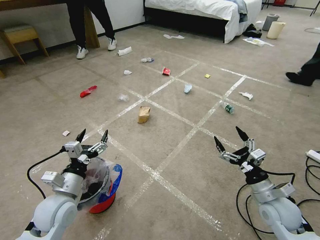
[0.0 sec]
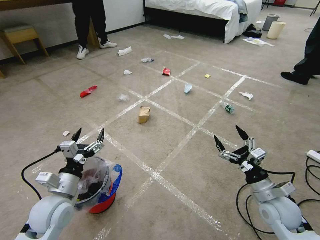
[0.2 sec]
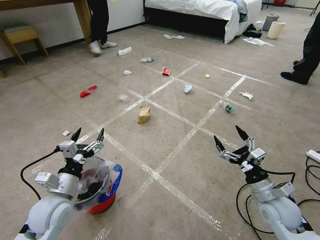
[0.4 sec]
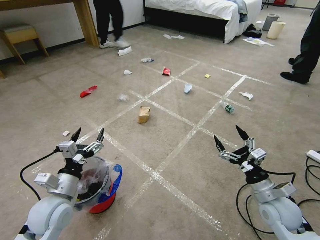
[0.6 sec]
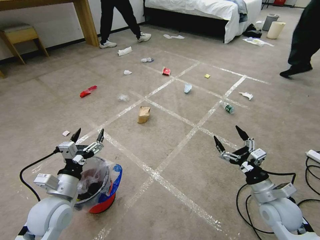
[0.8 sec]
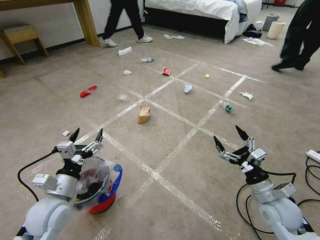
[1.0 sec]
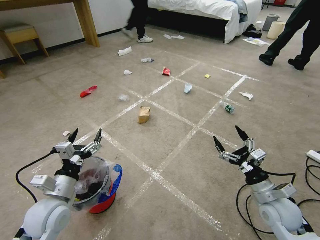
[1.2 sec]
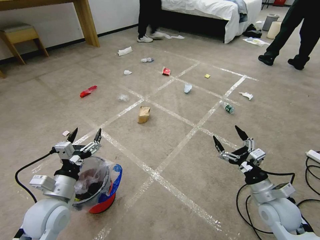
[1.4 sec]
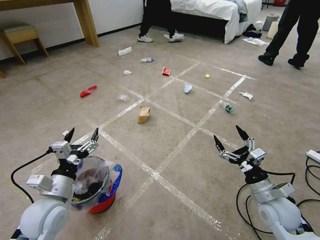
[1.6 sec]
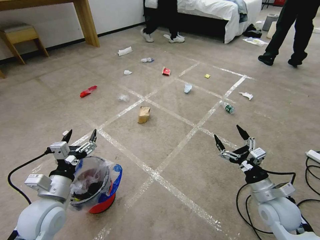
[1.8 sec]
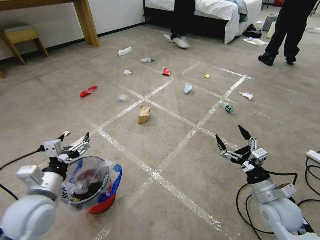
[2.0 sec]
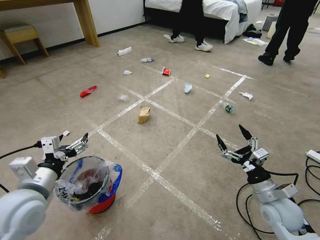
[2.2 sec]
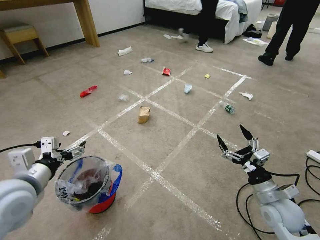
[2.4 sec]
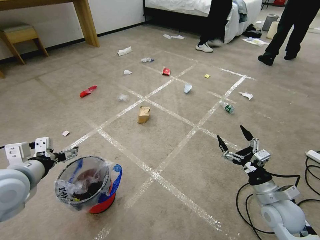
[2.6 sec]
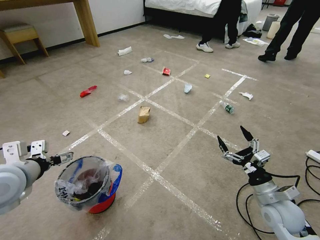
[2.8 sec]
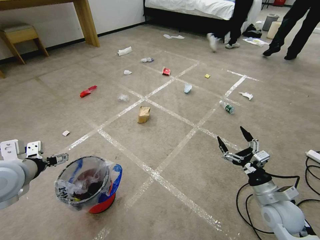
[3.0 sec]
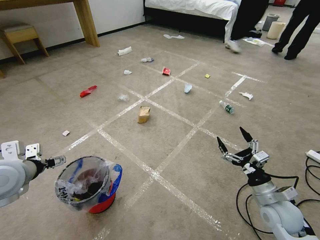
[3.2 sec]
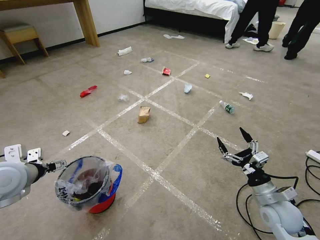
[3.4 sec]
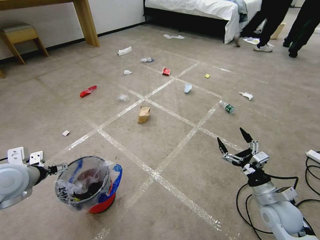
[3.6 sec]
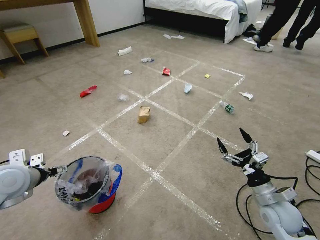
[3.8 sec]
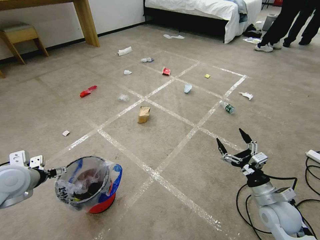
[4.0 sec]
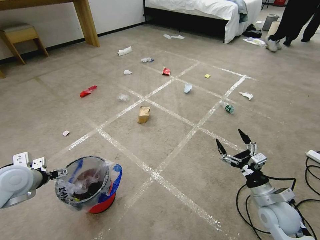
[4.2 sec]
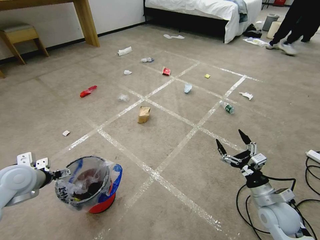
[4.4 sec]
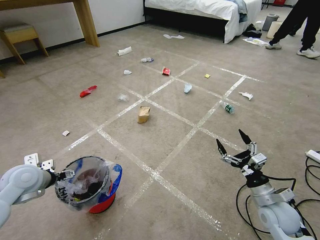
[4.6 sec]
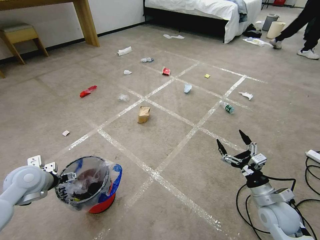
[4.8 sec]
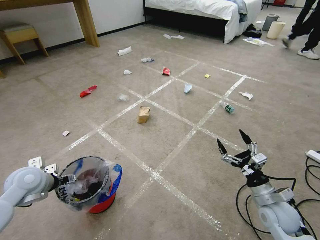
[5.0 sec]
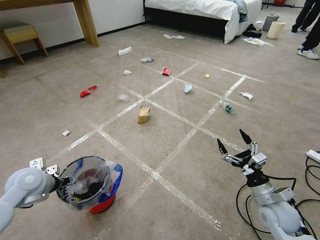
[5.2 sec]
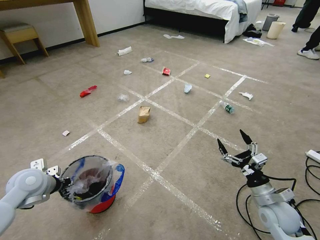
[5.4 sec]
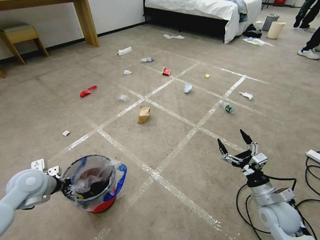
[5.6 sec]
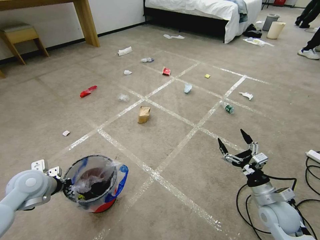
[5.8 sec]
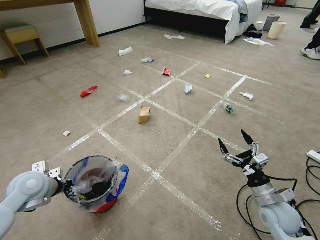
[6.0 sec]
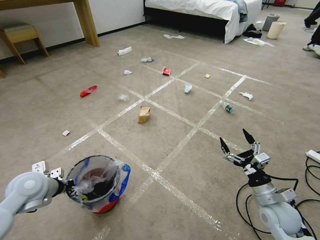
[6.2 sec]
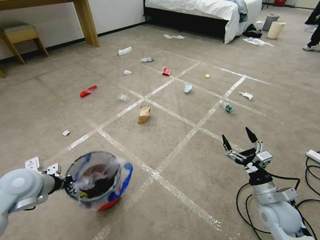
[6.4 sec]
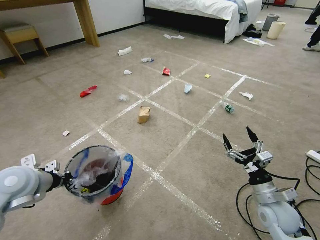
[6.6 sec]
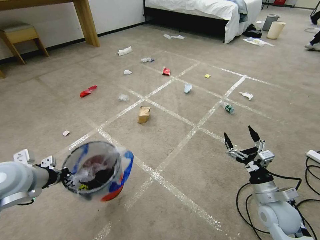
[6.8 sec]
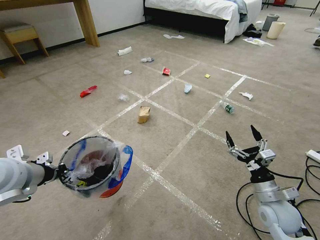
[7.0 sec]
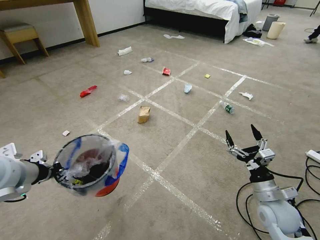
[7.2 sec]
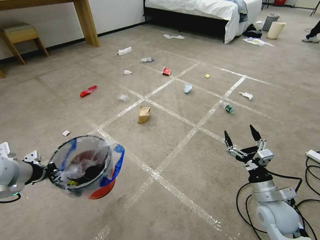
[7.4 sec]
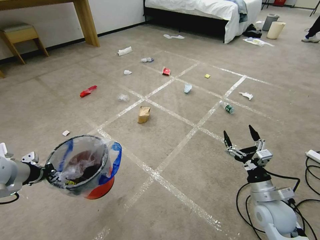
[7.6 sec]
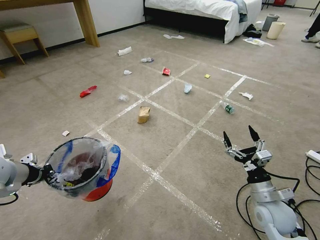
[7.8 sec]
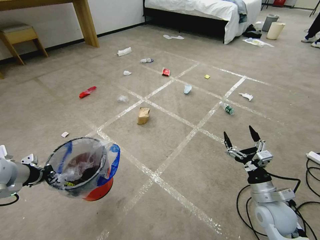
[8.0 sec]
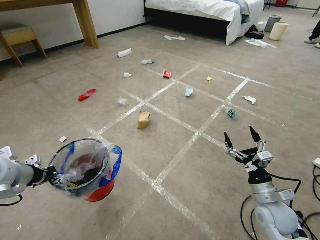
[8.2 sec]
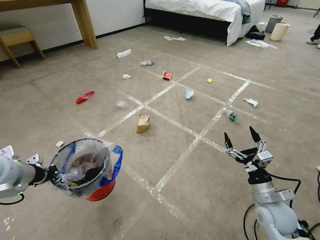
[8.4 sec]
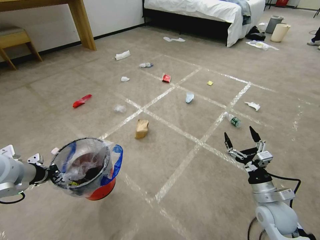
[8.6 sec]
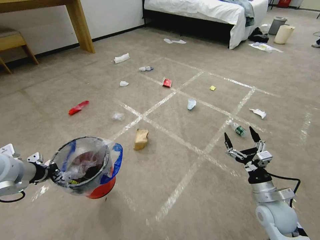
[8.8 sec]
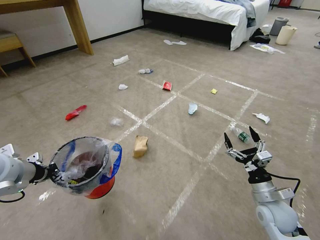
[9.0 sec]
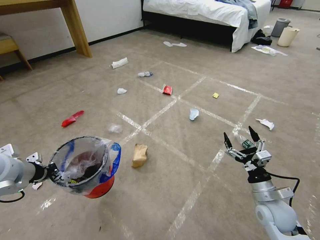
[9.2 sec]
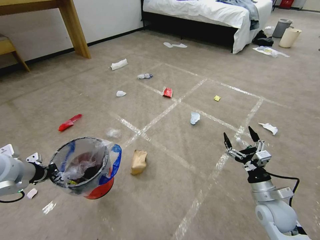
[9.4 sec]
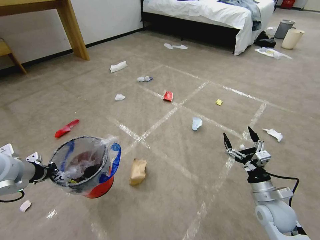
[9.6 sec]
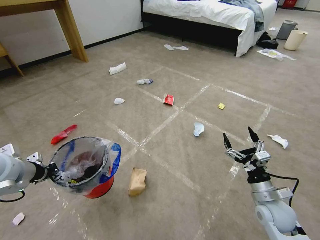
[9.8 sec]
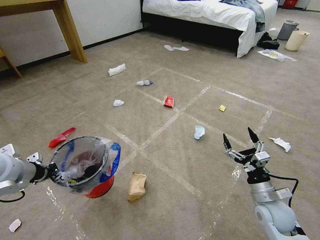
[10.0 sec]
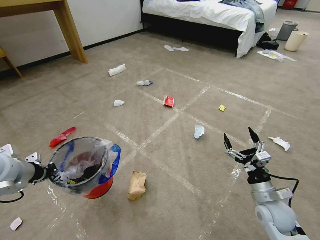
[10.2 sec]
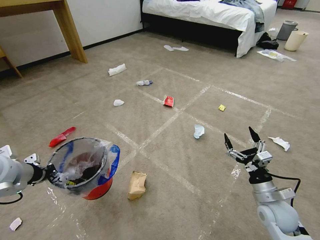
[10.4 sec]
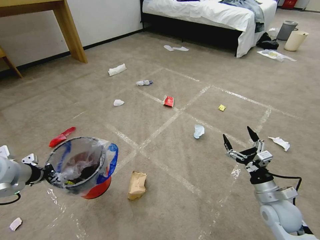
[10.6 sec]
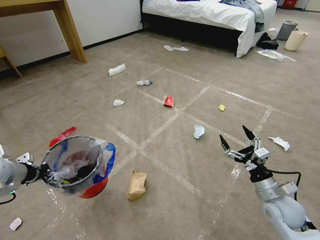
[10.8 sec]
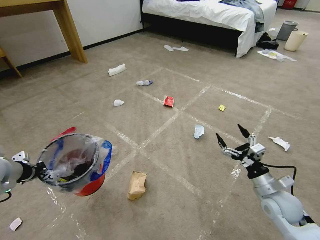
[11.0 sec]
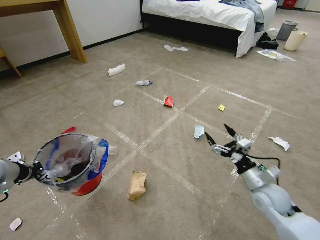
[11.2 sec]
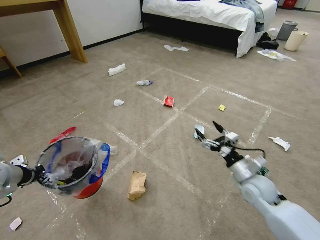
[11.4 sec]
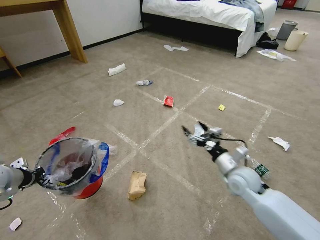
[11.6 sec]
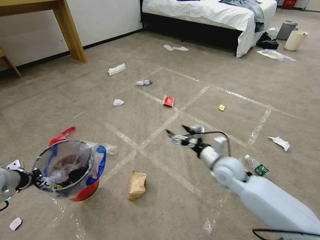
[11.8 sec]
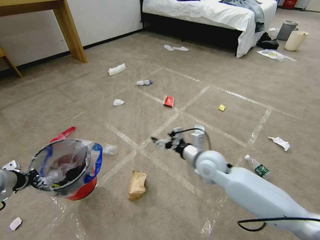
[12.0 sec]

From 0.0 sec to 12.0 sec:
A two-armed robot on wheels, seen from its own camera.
Task of the whole recording: Pick up the trash bin and place the garbage on the floor into it.
From 1.6 sec to 3.0 sec: The left gripper moves upward and to the left, about 15 cm.
From 3.0 sec to 4.4 sec: The left gripper heads downward, covering roughly 10 cm.
From 4.4 sec to 6.0 sec: The left gripper closes.
From 6.0 sec to 7.6 sec: The left gripper shifts some 10 cm upward.
From 10.4 sec to 12.0 sec: The right gripper moves to the left, forward and upward, roughly 25 cm.

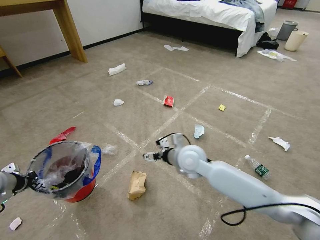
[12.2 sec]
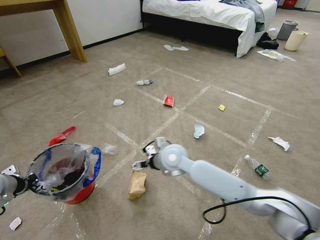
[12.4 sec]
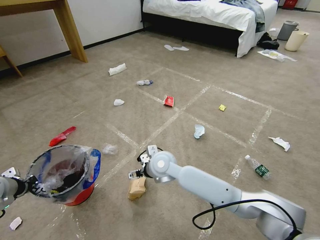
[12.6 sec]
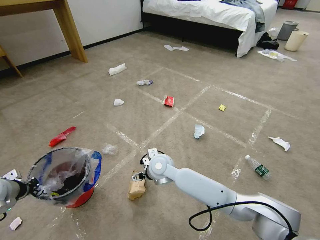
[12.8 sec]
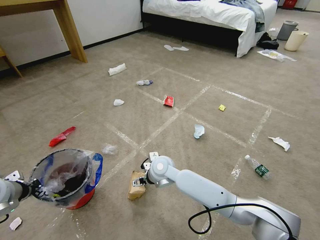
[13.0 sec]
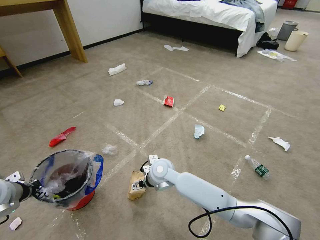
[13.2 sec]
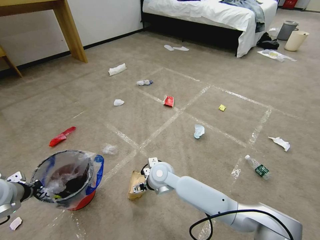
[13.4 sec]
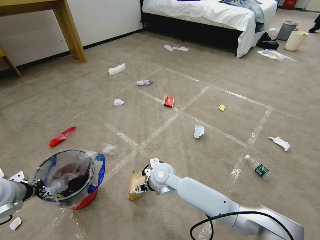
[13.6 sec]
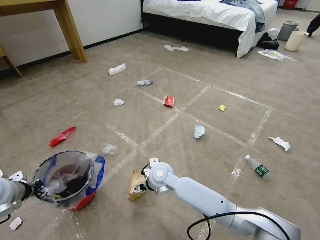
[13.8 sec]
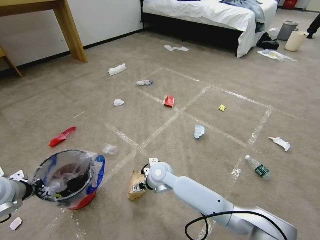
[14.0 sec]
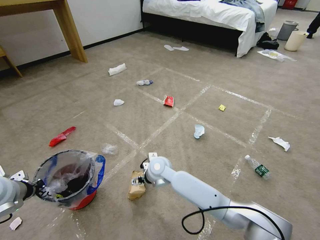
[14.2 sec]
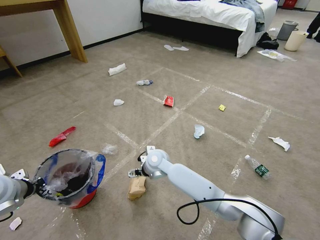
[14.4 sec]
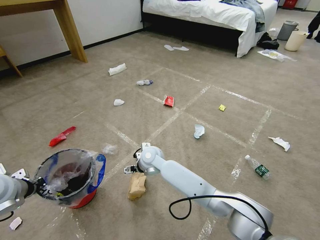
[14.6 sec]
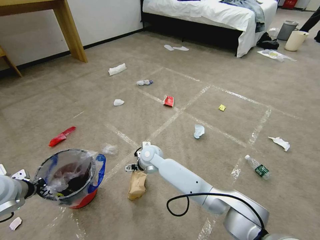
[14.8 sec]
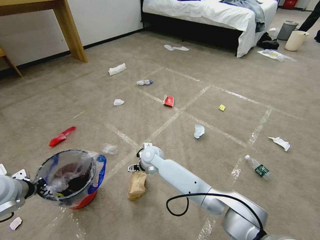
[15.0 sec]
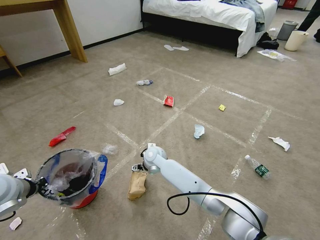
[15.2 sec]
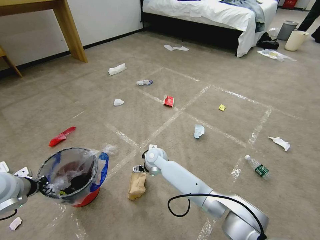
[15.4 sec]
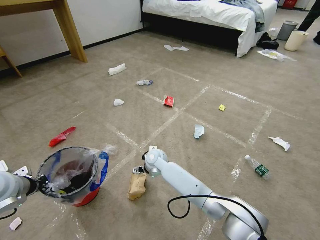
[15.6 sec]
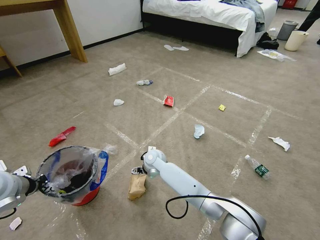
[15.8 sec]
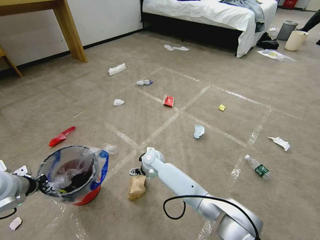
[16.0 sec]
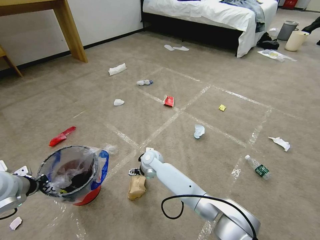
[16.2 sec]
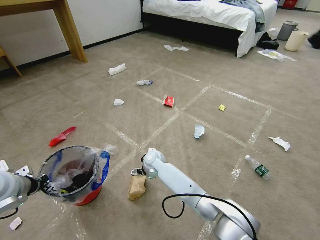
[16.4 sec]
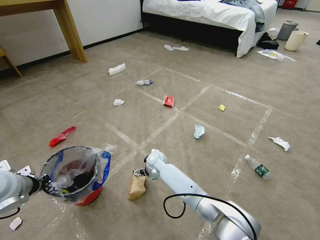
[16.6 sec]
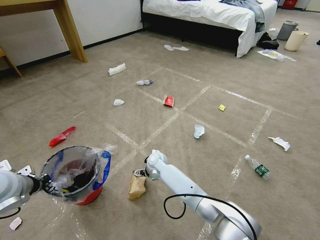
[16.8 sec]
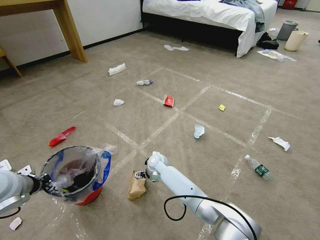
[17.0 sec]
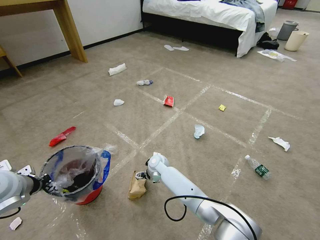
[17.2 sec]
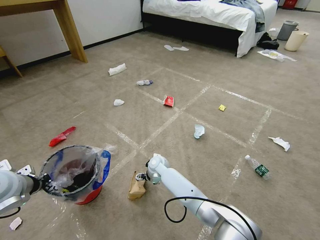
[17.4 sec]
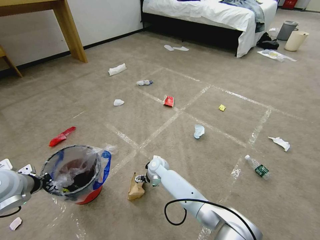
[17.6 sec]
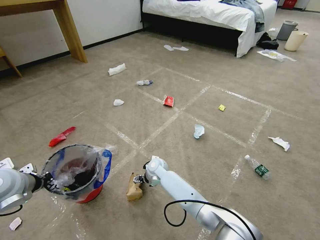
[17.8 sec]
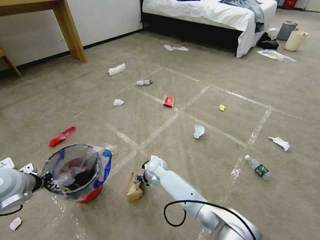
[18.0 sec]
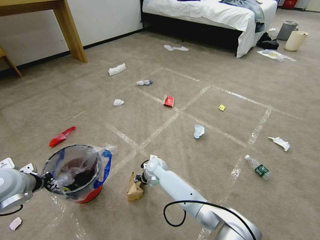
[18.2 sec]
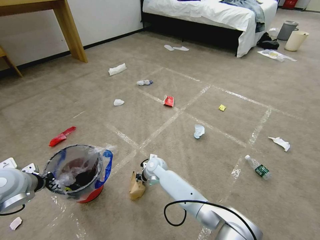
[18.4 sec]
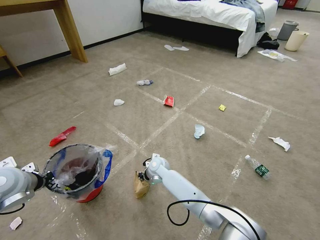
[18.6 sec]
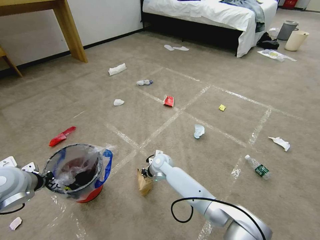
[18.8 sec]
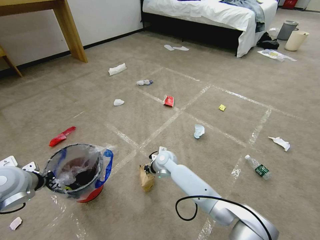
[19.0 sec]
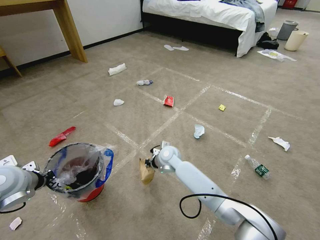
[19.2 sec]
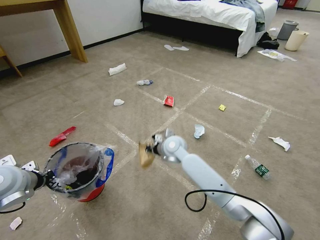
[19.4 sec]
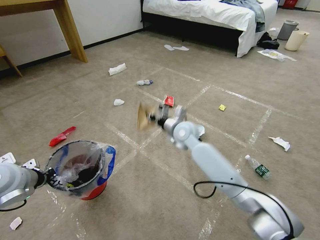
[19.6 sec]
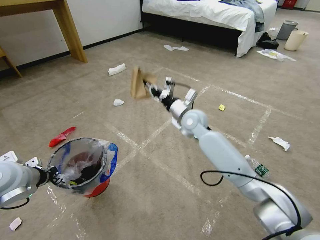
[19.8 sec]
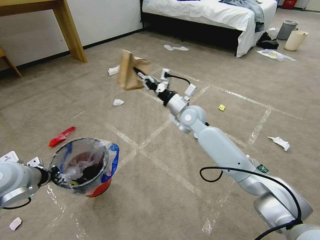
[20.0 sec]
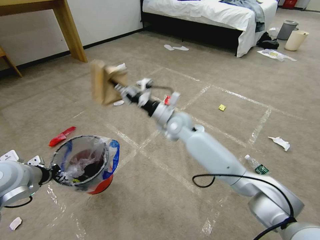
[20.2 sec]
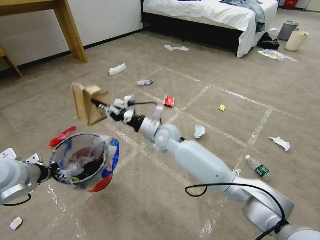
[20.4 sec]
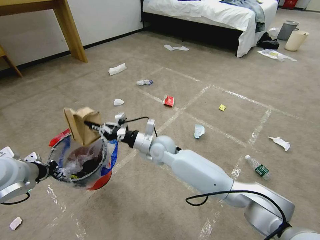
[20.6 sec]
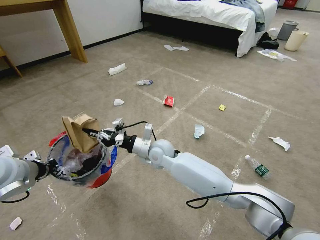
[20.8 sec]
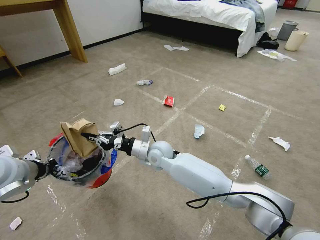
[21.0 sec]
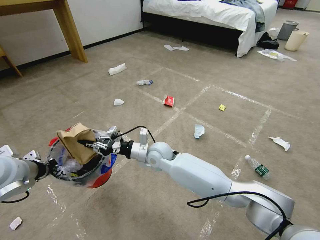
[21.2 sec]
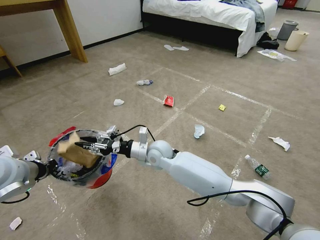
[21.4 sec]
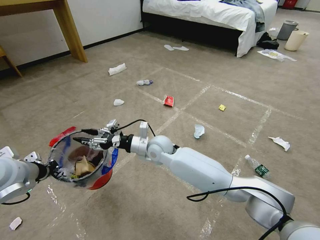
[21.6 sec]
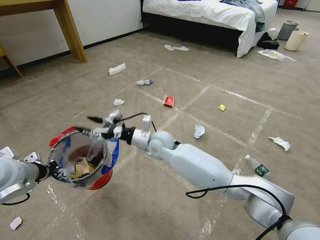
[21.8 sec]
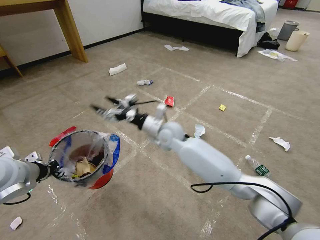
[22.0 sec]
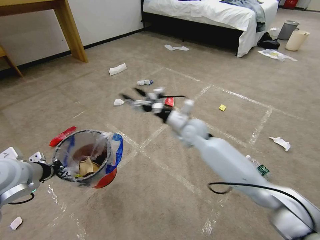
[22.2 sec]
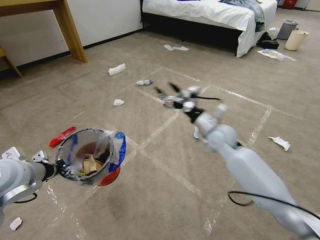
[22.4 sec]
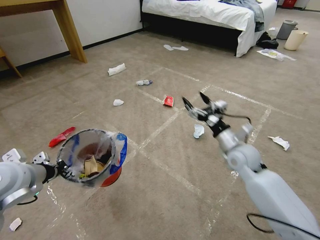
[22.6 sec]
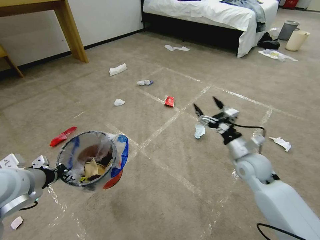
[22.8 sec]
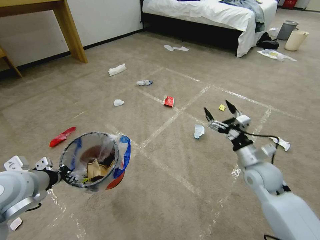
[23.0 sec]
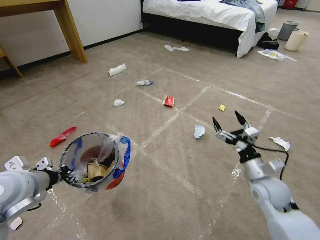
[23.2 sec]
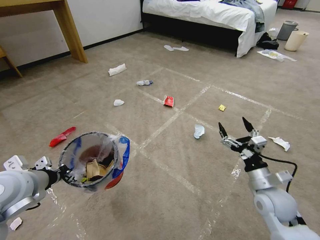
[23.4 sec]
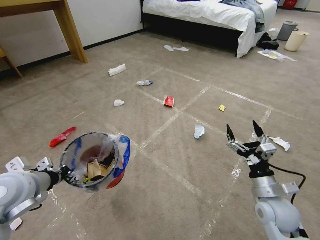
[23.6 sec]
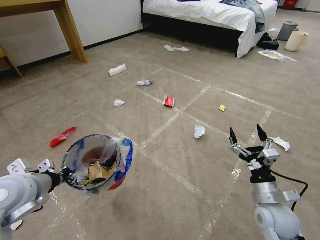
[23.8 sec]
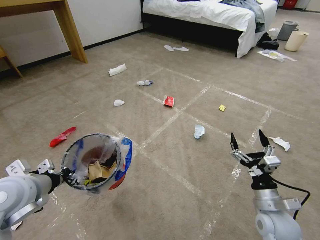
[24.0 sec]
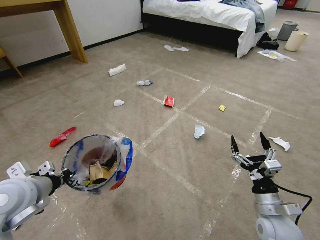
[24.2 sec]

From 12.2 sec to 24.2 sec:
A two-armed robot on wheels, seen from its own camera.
Task of the whole recording: Pick up the trash bin and place the garbage on the floor into it.
From 12.2 sec to 13.8 sec: The right gripper travels to the left and downward by approximately 15 cm.
From 13.8 sec to 15.2 sec: The right gripper goes roughly 10 cm forward.
From 15.2 sec to 16.6 sec: The grippers stay close to where they were, moving slightly.
From 16.6 sec to 18.2 sec: The right gripper closes its fingers.
From 18.2 sec to 19.8 sec: The right gripper is displaced upward and to the right by some 25 cm, and closes up.
From 19.8 sec to 21.2 sec: The right gripper travels to the left, downward and backward by roughly 20 cm.
From 21.2 sec to 22.6 sec: The right gripper heads to the right, covering about 30 cm, and opens its fingers.
From 22.6 sec to 24.2 sec: The right gripper travels backward and downward by approximately 20 cm.
